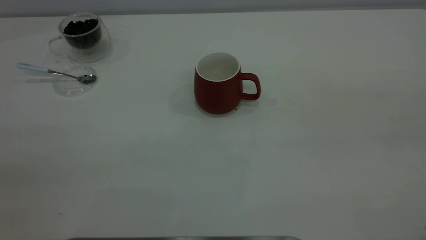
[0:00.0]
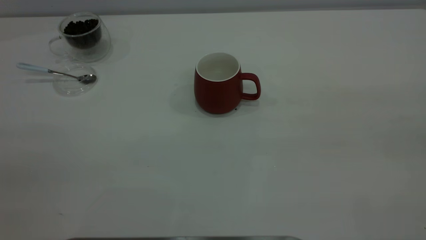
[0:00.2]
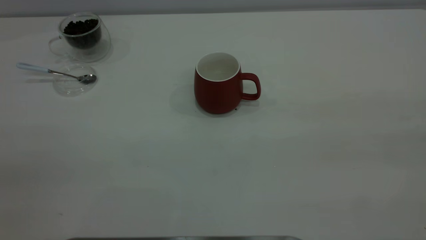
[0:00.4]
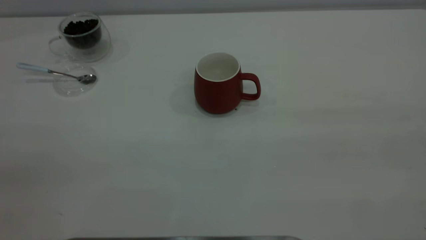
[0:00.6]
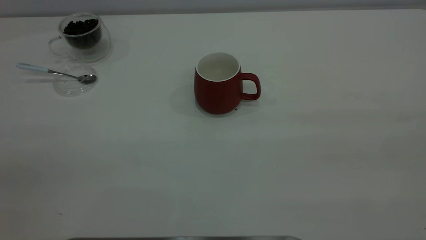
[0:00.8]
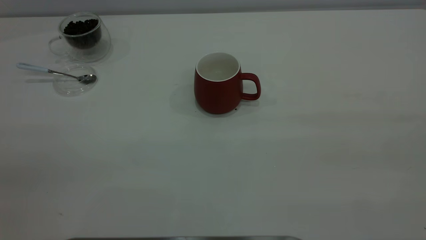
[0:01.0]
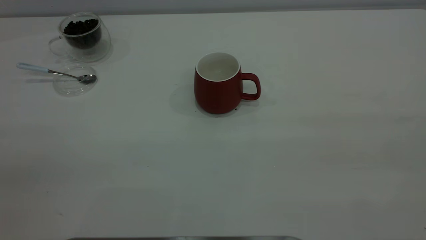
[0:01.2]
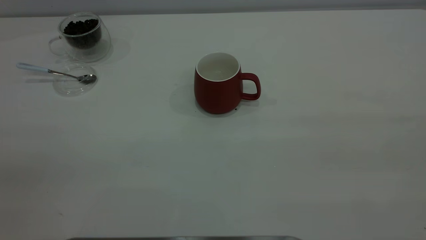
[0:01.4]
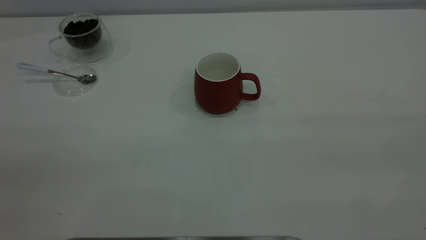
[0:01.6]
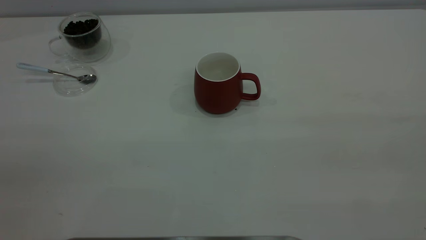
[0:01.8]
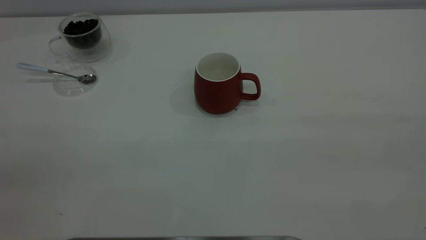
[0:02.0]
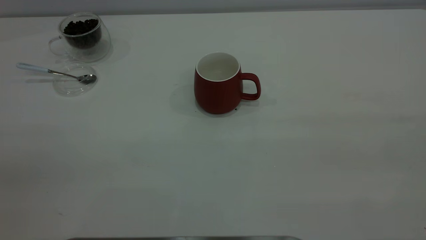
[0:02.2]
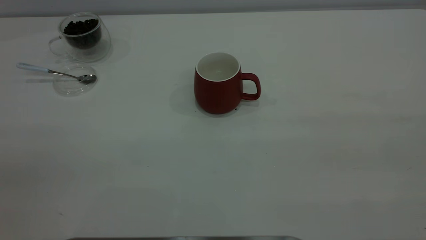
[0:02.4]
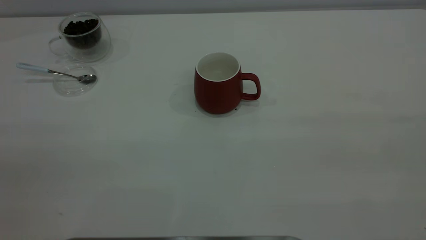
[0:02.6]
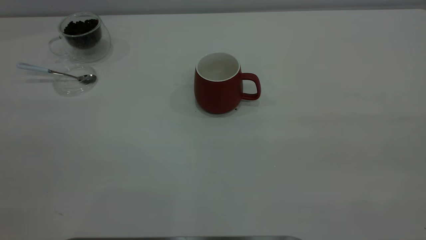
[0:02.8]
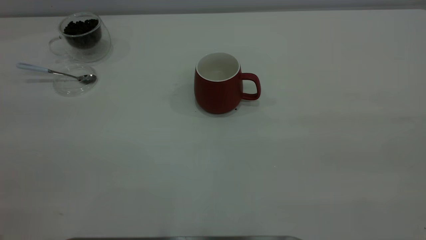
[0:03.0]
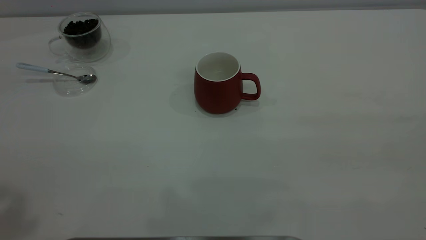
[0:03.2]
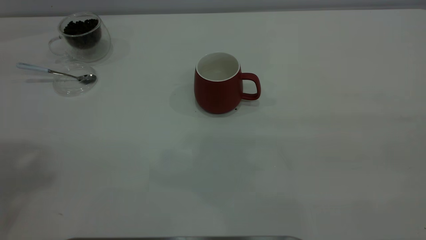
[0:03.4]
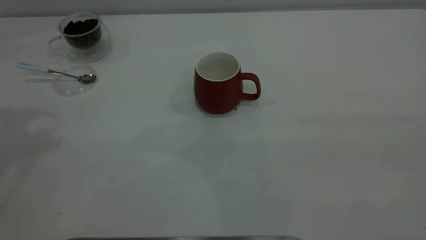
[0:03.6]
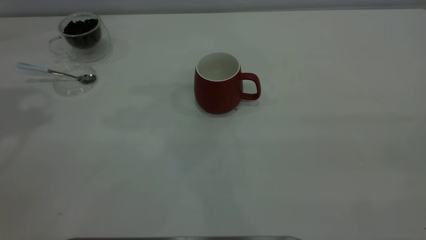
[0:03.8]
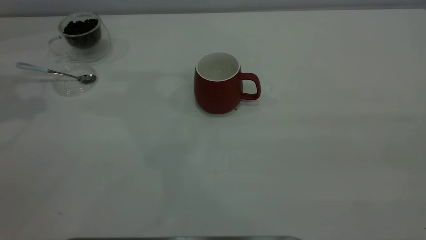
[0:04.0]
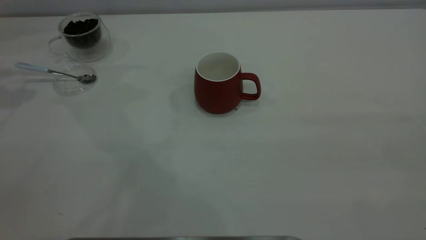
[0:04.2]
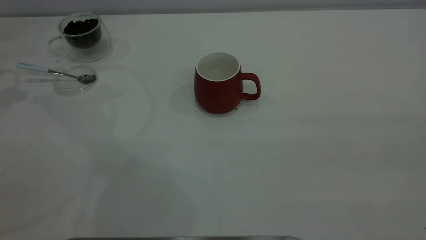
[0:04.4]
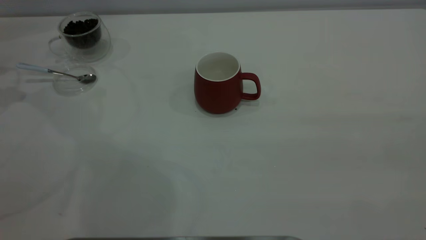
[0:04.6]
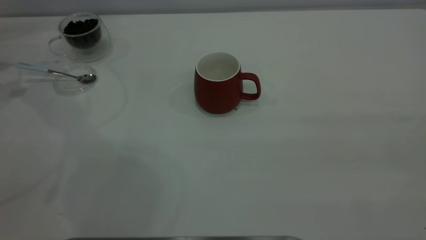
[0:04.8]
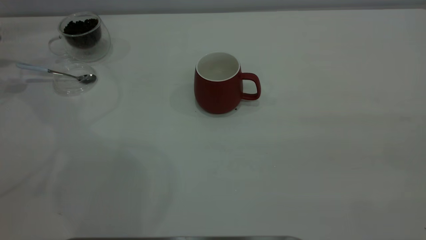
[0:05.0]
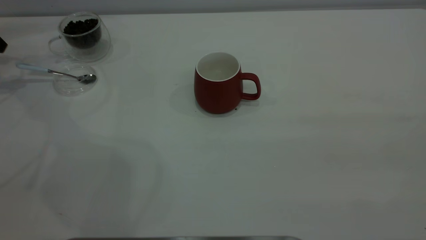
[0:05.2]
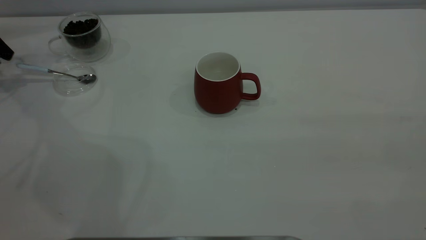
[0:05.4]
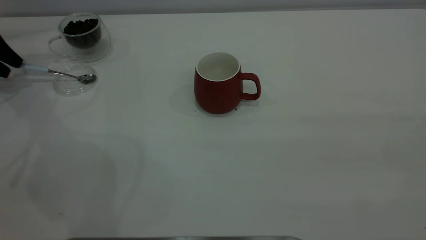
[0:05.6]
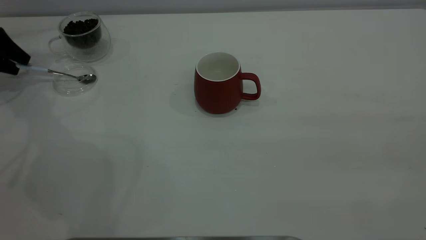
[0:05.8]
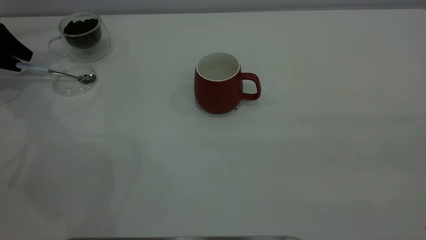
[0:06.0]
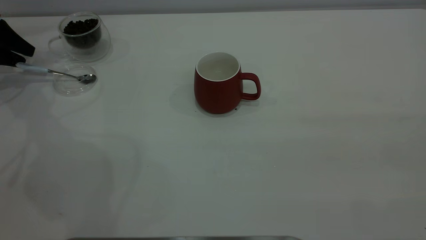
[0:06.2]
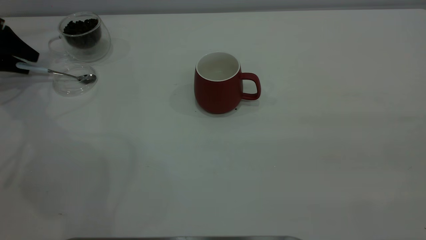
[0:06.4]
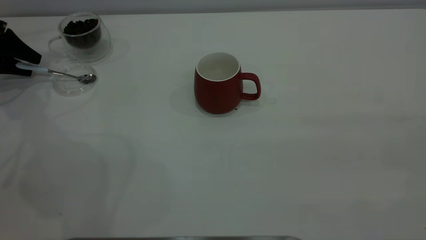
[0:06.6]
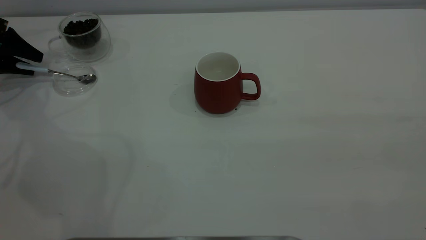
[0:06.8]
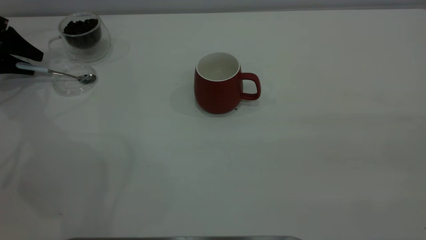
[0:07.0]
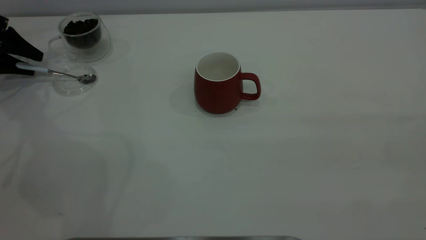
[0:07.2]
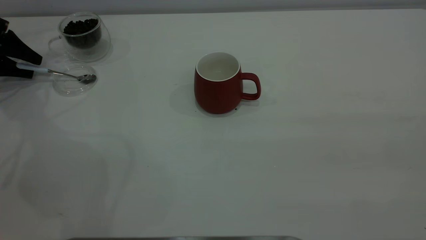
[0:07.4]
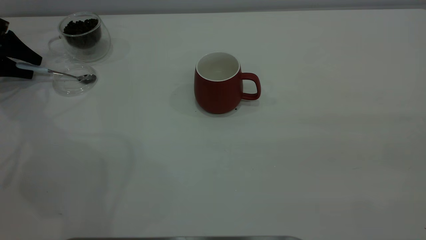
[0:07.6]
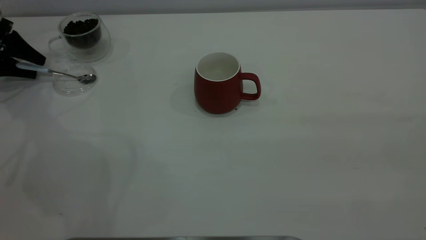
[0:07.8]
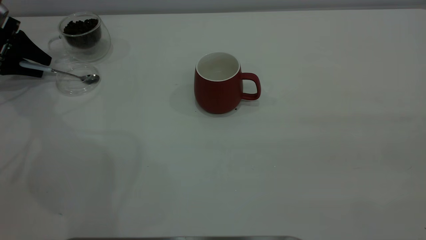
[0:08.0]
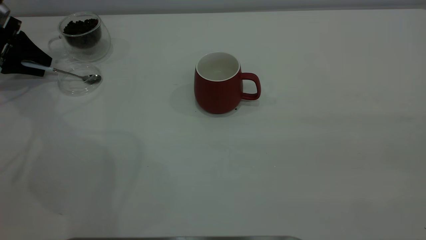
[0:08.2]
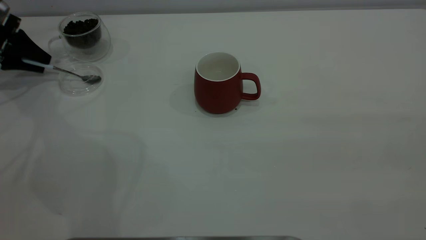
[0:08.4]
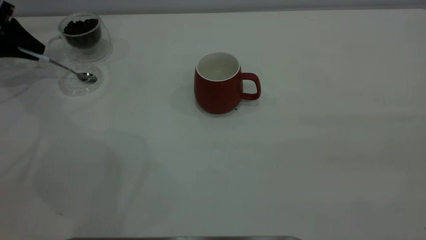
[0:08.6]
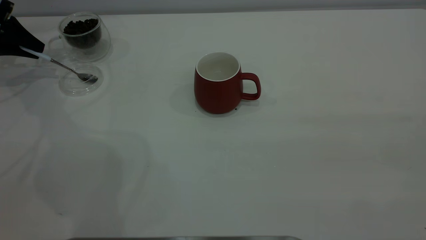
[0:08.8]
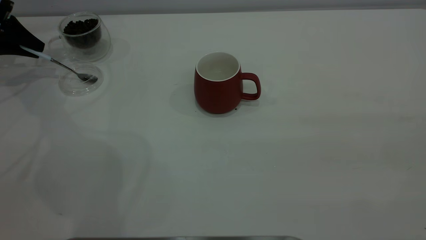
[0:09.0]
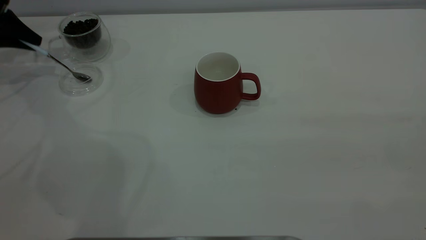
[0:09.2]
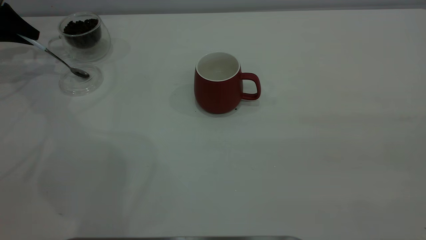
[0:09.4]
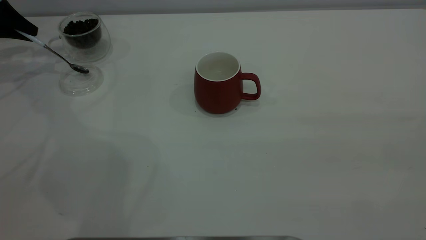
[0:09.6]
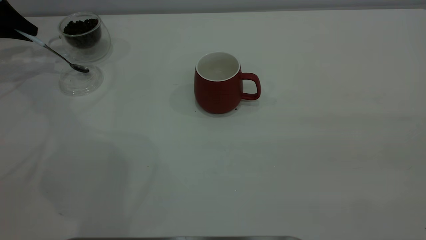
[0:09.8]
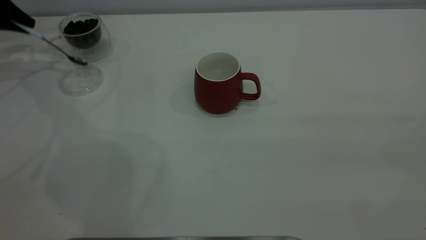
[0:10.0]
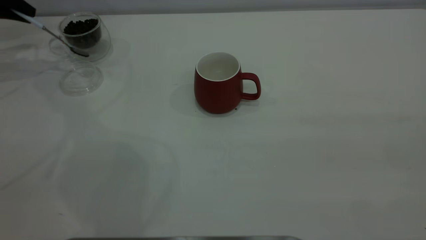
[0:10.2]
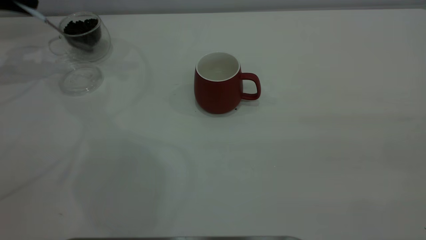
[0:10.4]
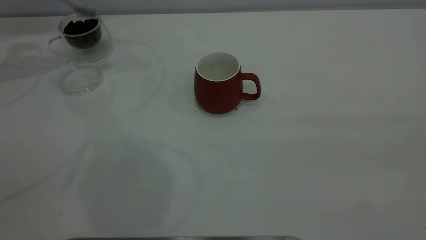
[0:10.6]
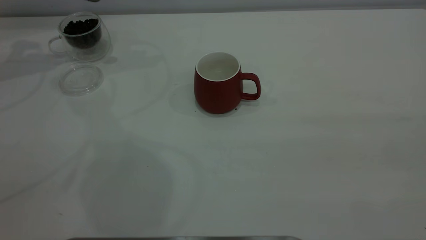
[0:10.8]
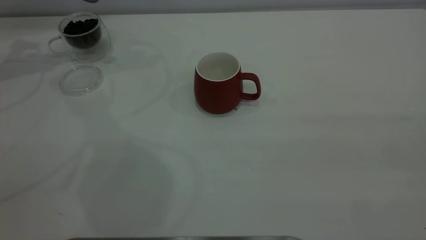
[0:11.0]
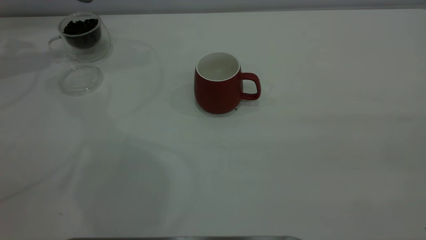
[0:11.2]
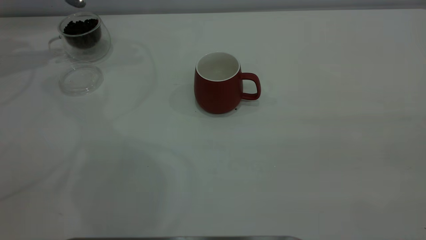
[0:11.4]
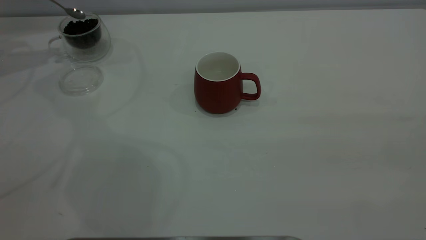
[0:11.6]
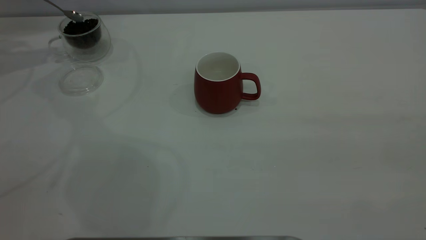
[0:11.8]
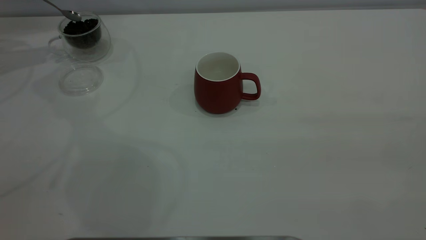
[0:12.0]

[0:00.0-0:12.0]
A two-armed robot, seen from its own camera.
Task of the whole recording: the right gripper place the red cup in the center of the table, the left gripper take the blue spoon from the cup lid and scoop out the coffee beans from the coffee cup and put them into the red cup, the left gripper put the spoon back into the cup lid.
Step, 0:00.0 to 0:10.0: Pick up the spoon.
0:04.4 to 0:06.0: The left gripper goes some 15 cm downward and forward.
0:07.6 to 0:09.0: The left gripper closes its fingers.
0:09.0 to 0:10.4: The left gripper heads upward, covering some 10 cm.

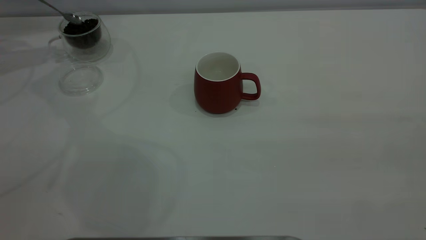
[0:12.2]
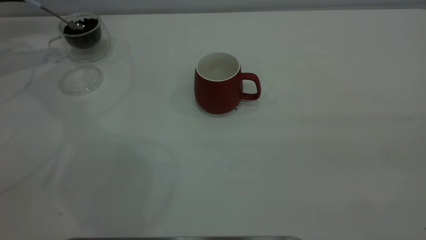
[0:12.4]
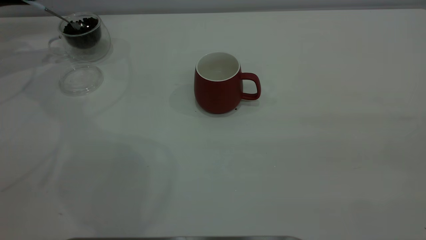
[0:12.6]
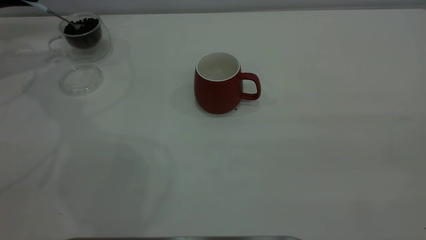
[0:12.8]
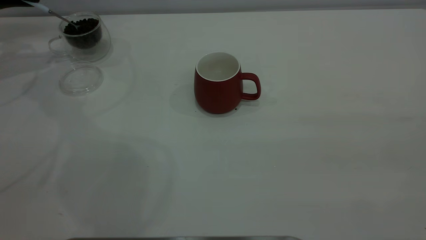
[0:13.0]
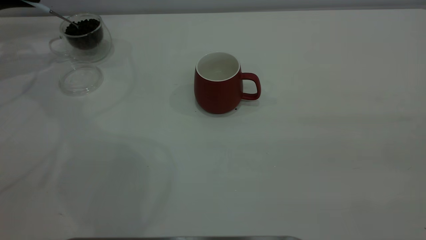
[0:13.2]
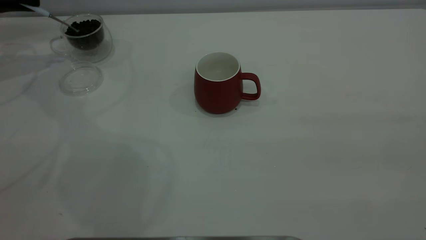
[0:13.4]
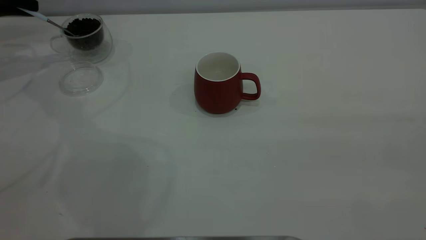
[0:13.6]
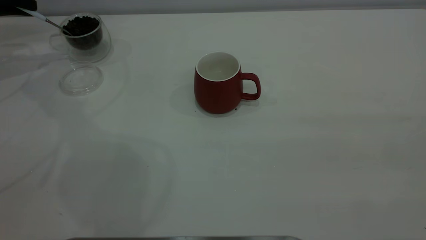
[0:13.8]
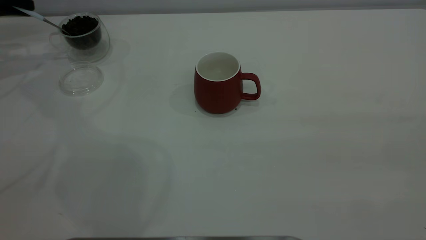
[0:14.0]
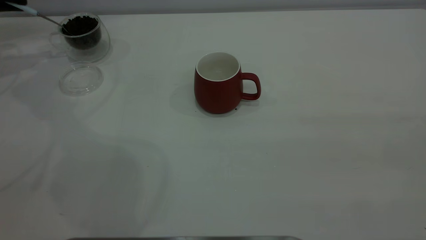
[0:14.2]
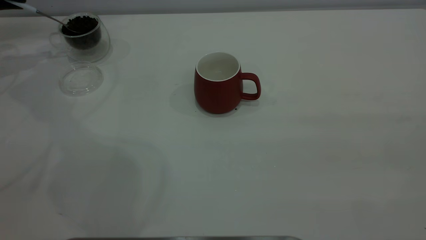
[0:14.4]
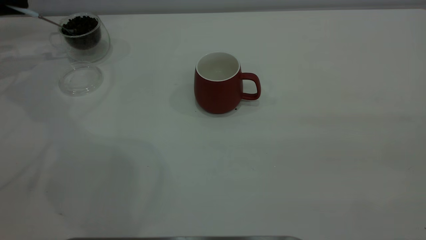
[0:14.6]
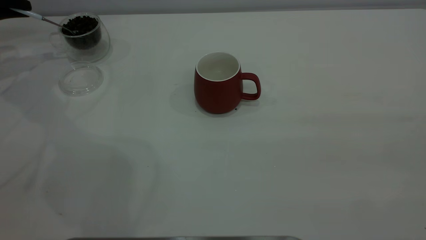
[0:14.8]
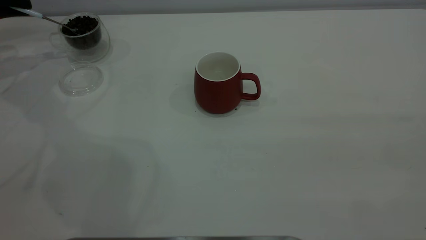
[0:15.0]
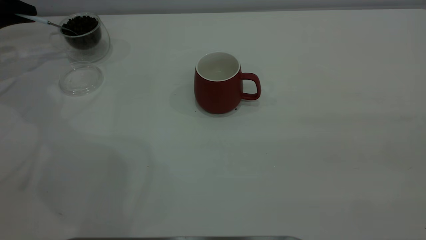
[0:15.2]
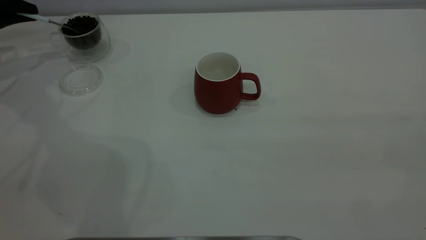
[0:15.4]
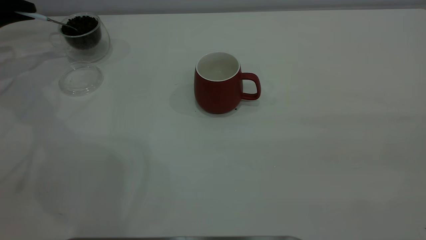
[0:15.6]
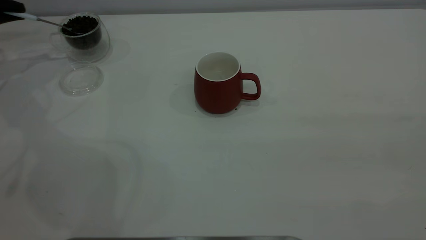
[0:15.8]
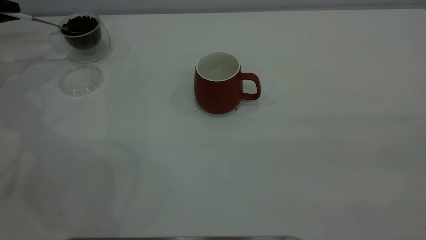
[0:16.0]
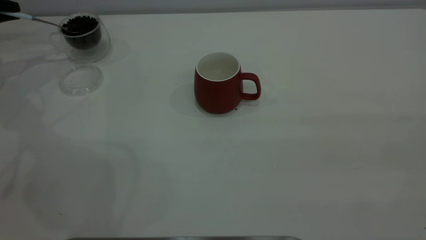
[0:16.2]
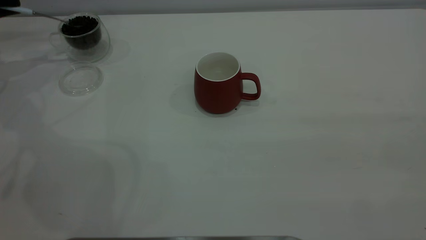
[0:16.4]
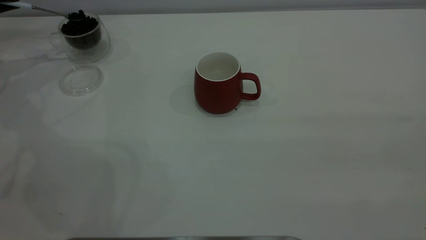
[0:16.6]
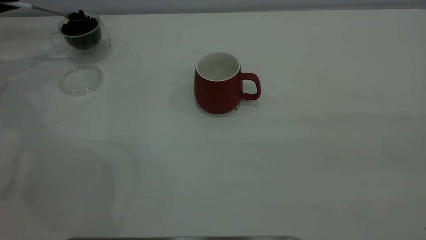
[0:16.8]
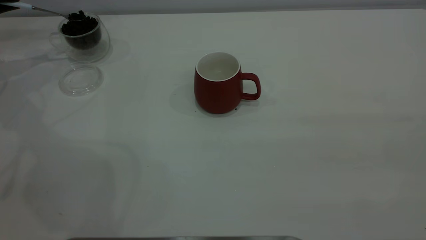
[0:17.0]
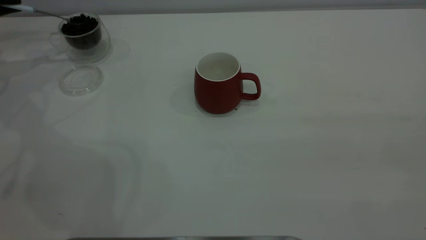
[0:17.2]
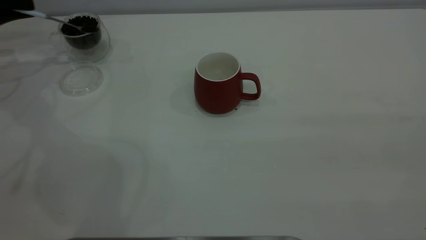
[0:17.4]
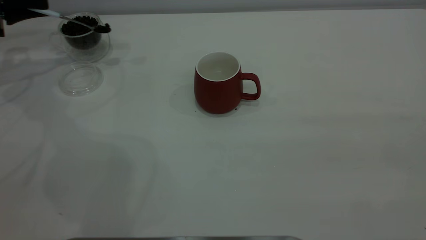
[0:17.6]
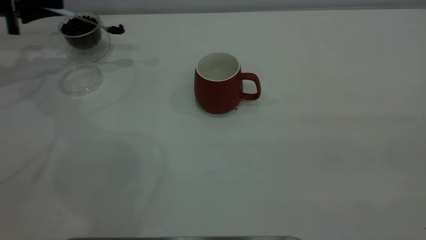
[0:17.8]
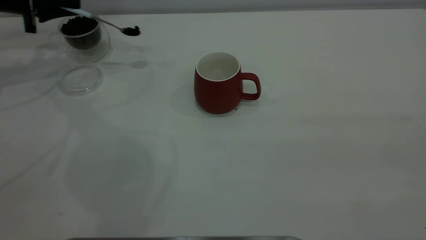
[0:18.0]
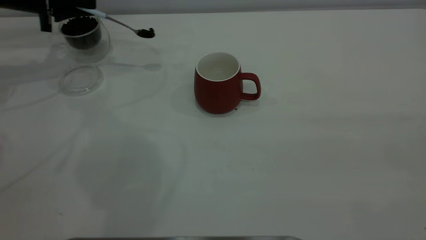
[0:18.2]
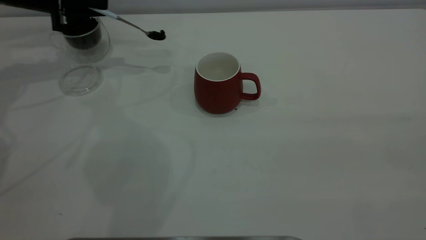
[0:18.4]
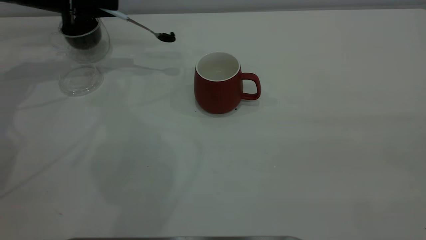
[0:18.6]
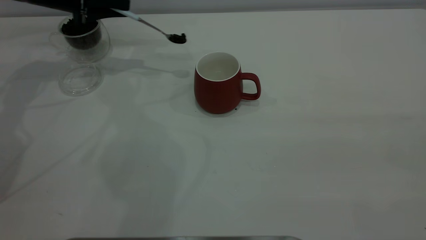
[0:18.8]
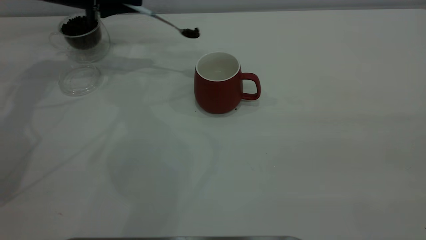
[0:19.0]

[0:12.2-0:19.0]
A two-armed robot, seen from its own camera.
Task of the whole recording: the right gripper place the red cup in the center of the table, the left gripper take the blue spoon from the cup lid and scoop out the coffee beans from the coffee cup and put them into the red cup, the left gripper put the spoon back into the cup lid.
0:16.2 to 0:17.6: The left gripper shifts about 5 cm to the right.
0:17.6 to 0:19.0: The left gripper goes approximately 15 cm to the right.
